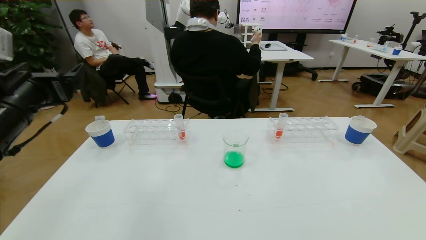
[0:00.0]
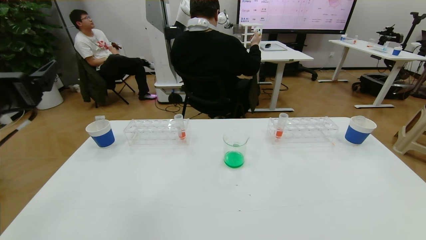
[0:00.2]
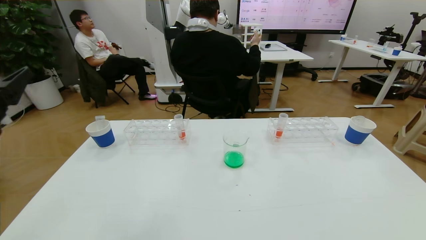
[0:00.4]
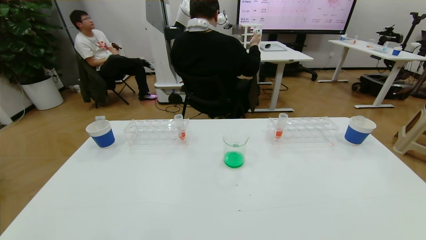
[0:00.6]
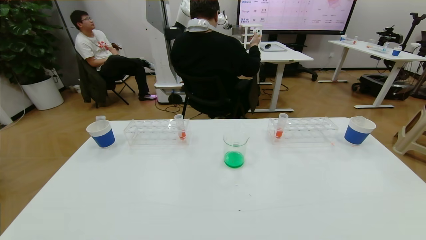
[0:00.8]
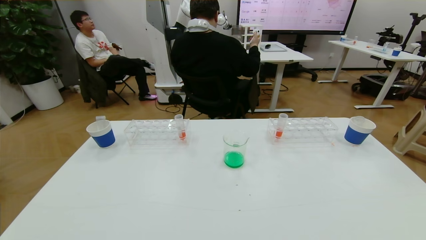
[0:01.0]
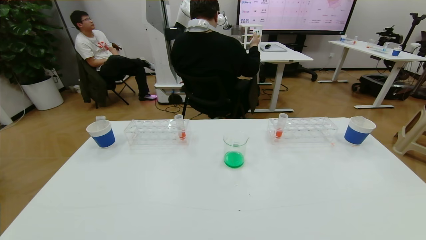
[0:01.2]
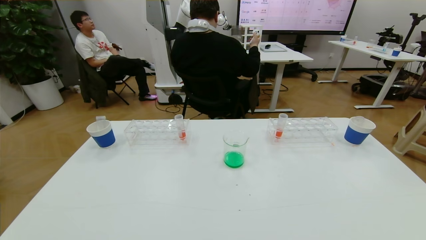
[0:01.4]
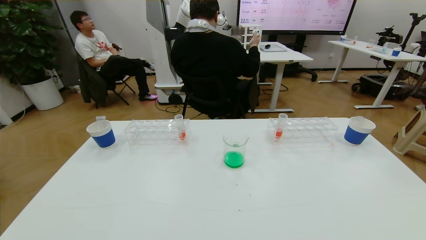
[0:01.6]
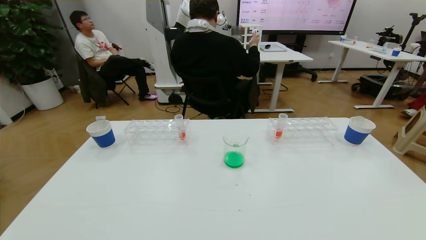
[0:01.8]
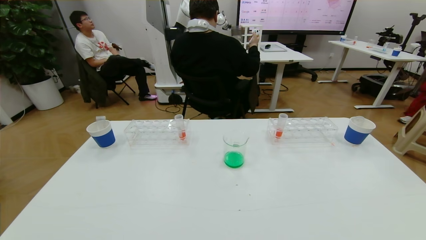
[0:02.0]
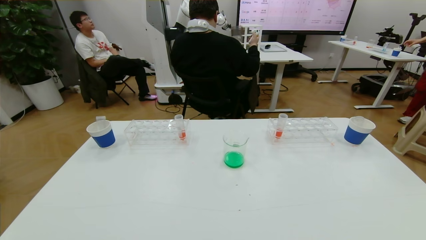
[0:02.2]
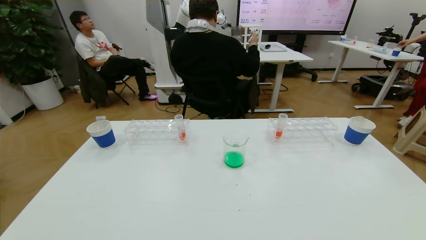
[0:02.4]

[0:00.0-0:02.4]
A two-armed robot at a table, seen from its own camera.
Task of the whole recording: pick up the test tube with yellow pigment and the test tube with blue pigment by grippers and pour them into the beaker.
Step, 0:00.0 to 0:02.4: Pour the blue reagent into the graduated cylinder and place the test tube into the paper cup.
0:00.0 to 0:01.2: The left gripper heads backward, covering about 30 cm.
